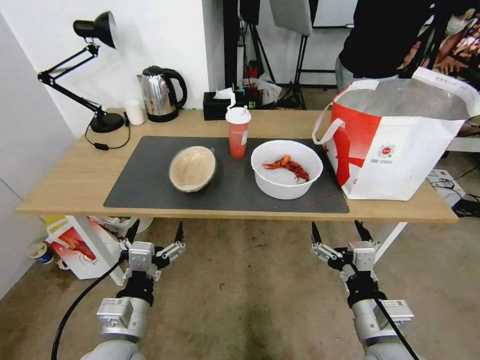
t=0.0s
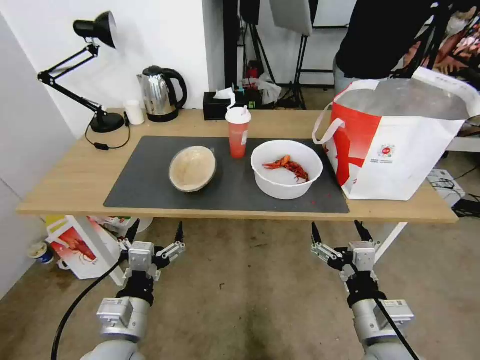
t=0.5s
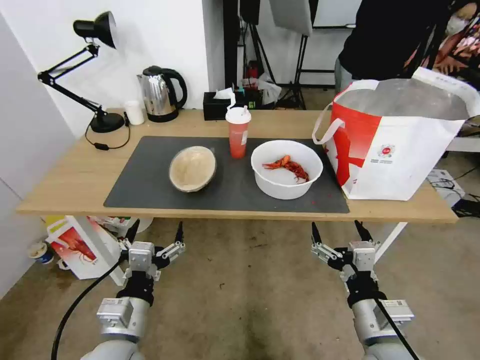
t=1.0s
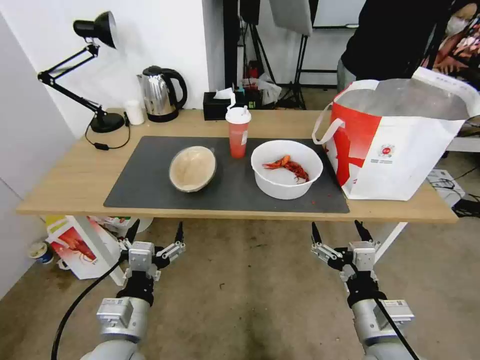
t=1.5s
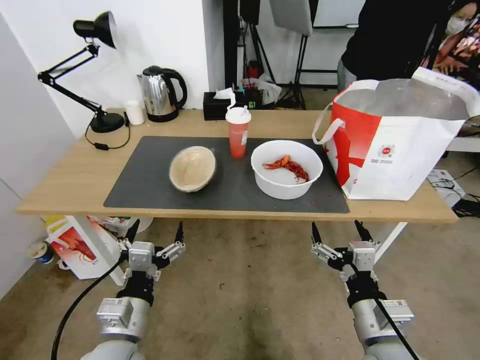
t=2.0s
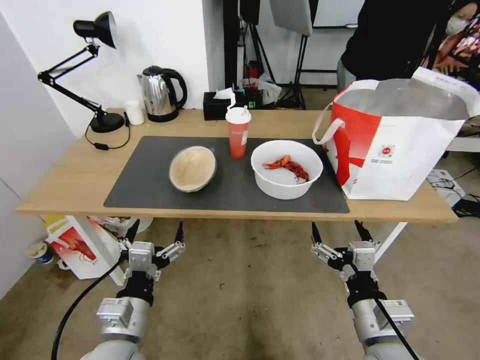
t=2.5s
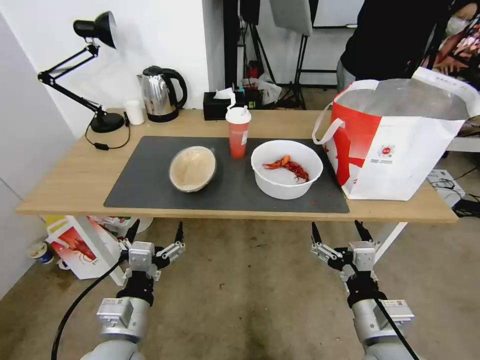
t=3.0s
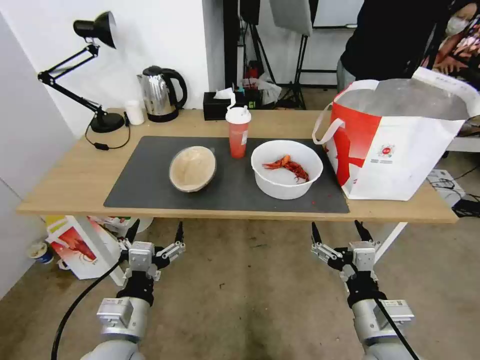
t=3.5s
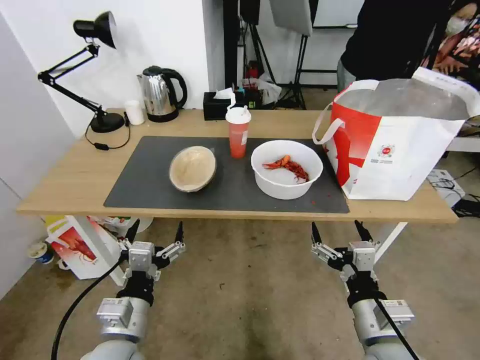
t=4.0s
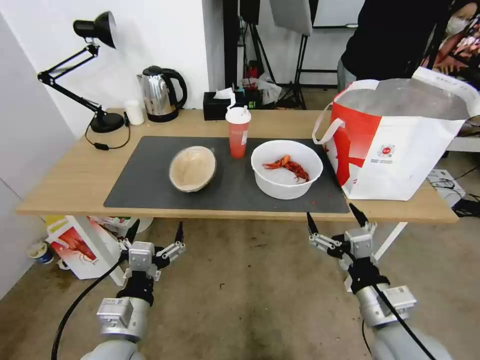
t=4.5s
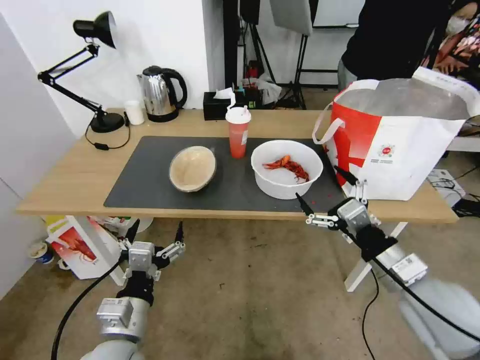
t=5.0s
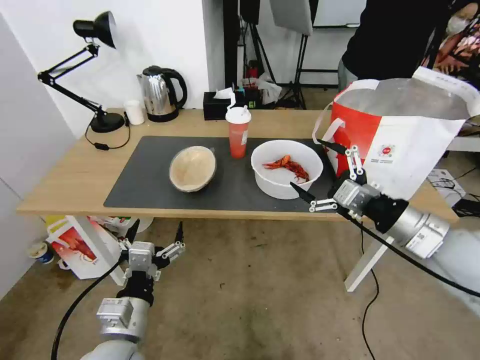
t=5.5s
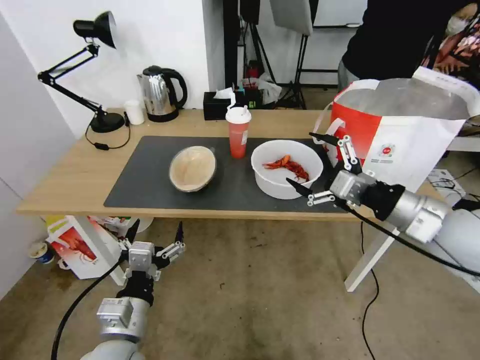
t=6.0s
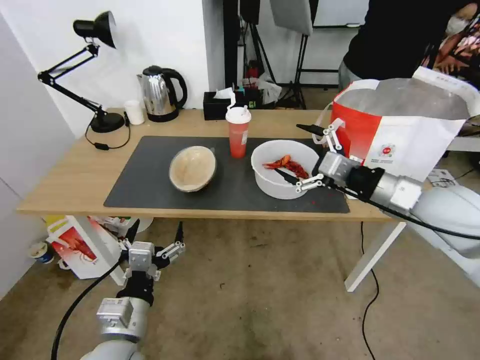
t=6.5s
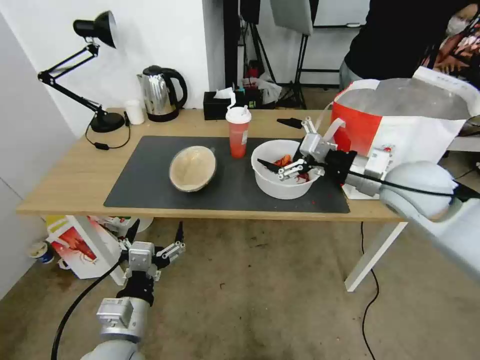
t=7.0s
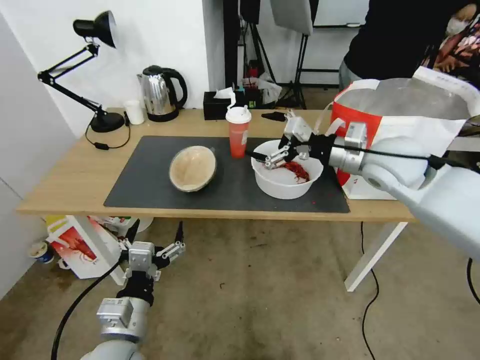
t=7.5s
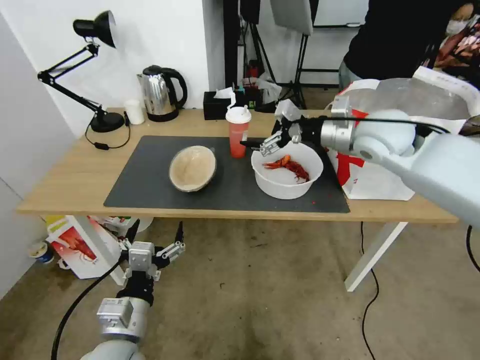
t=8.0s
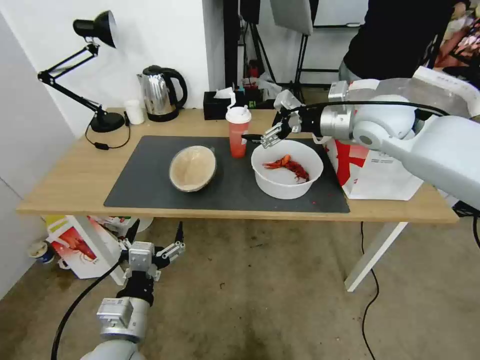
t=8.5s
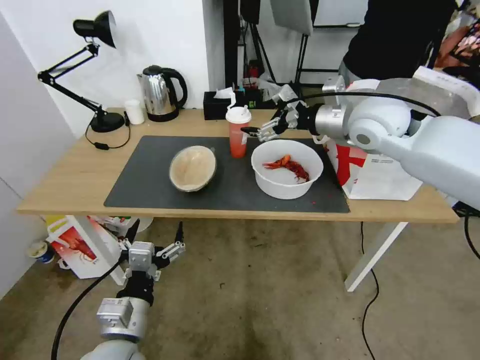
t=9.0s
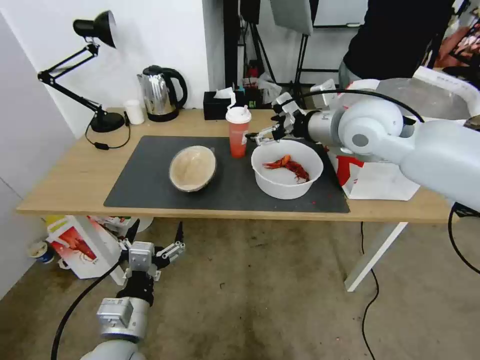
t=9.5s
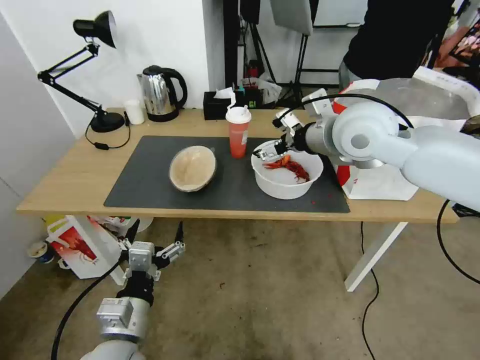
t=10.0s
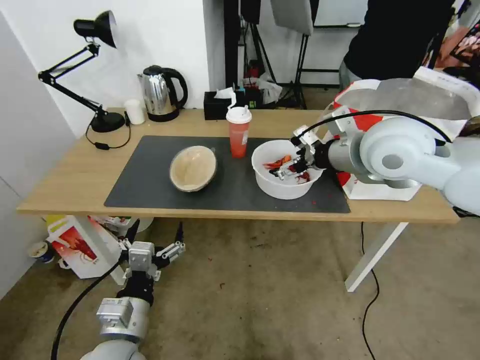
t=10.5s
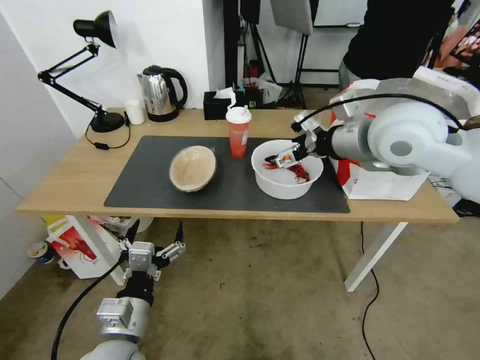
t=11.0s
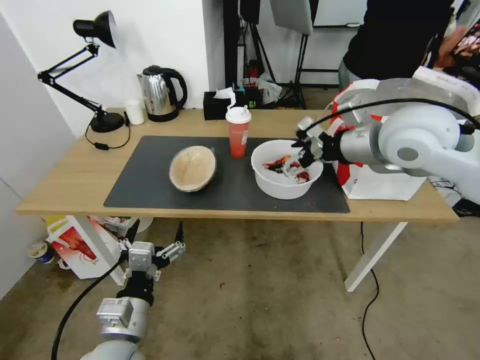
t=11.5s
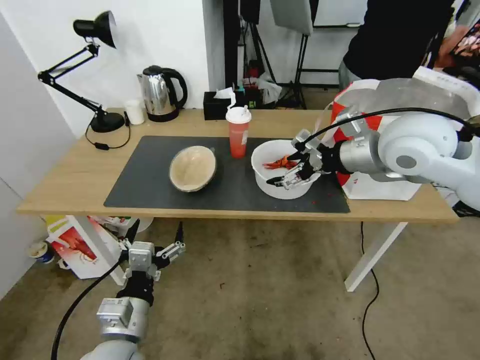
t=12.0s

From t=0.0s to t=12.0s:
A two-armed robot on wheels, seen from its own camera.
Task of the whole recording: Pick up the trash from the table and place it into the takeout bag.
From t=2.0s to t=4.0s: Both grippers stay about where they are.
From t=4.0s to t=6.0s: The right gripper travels upward, forward and to the right by some 25 cm.
From t=6.0s to t=8.0s: The right gripper moves forward, about 20 cm.
From t=8.0s to t=10.0s: The right gripper moves to the left, some 5 cm.
From t=10.0s to t=12.0s: The right gripper heads to the right, covering approximately 5 cm.

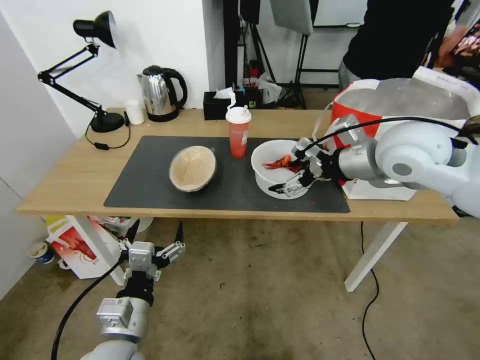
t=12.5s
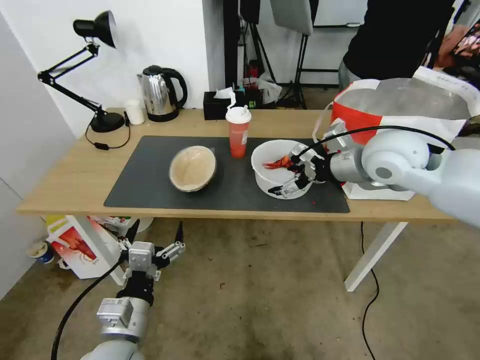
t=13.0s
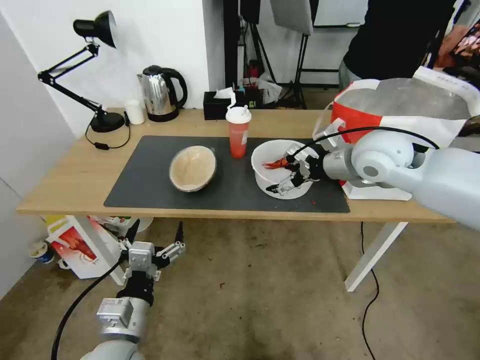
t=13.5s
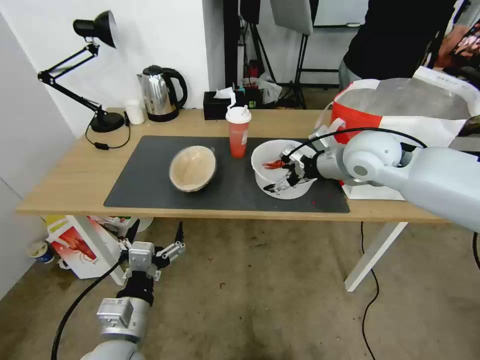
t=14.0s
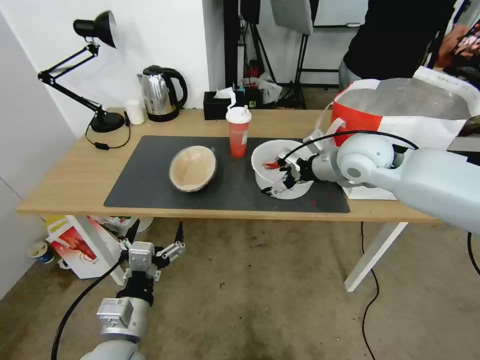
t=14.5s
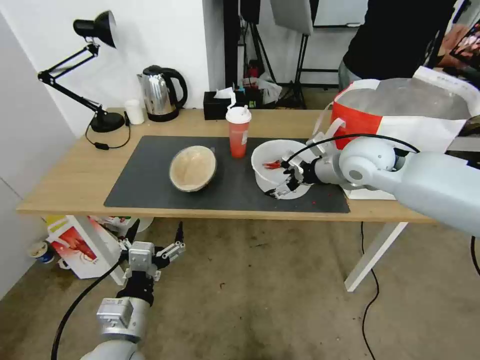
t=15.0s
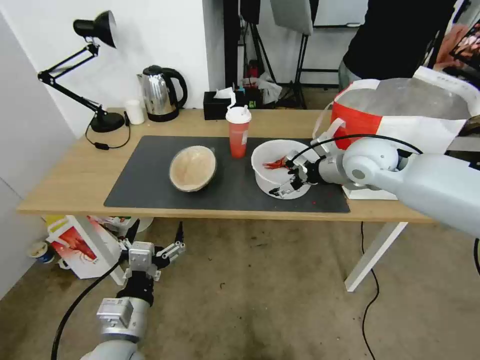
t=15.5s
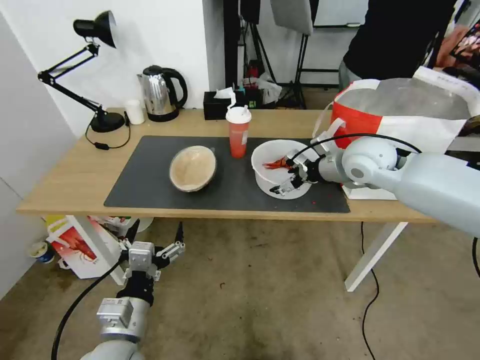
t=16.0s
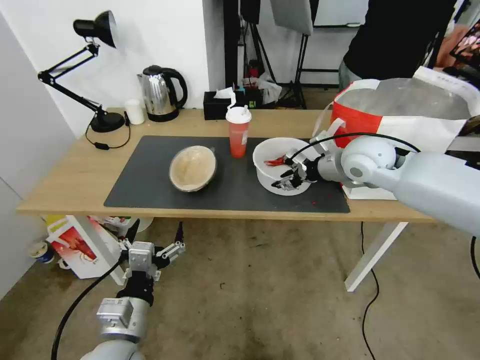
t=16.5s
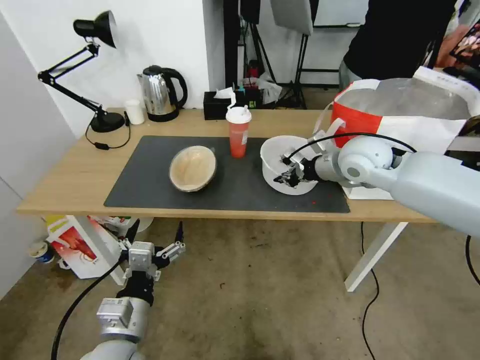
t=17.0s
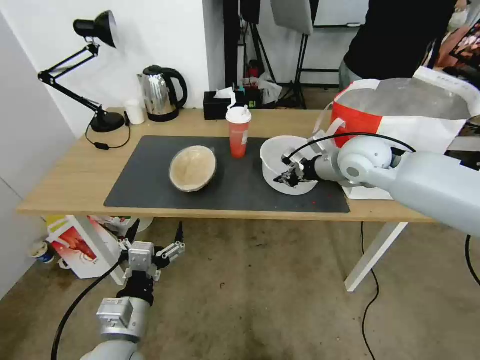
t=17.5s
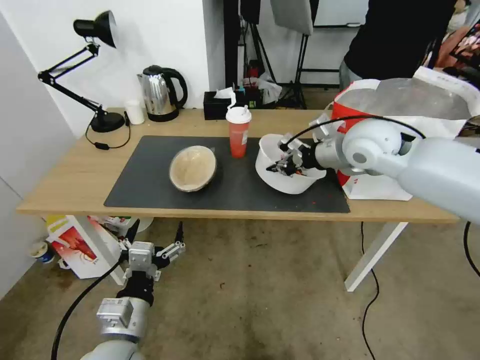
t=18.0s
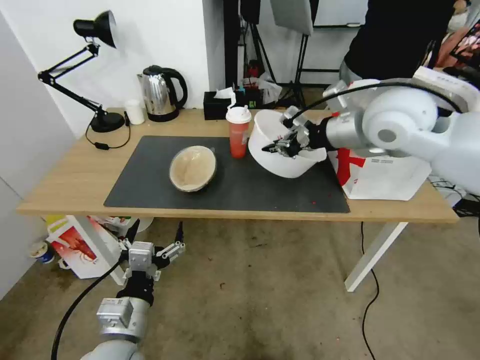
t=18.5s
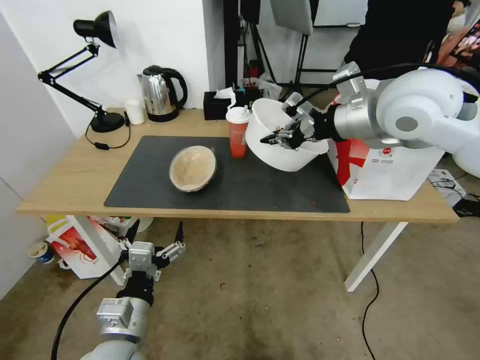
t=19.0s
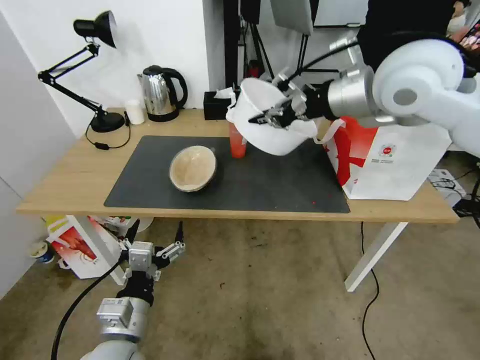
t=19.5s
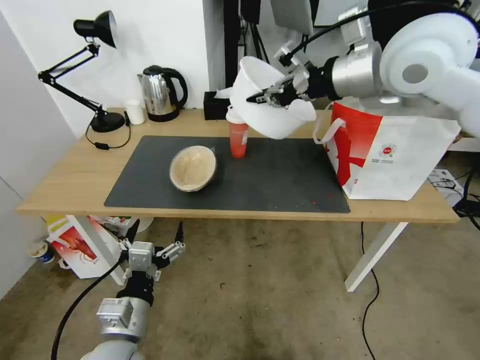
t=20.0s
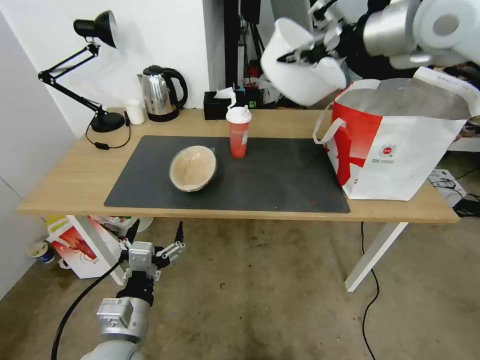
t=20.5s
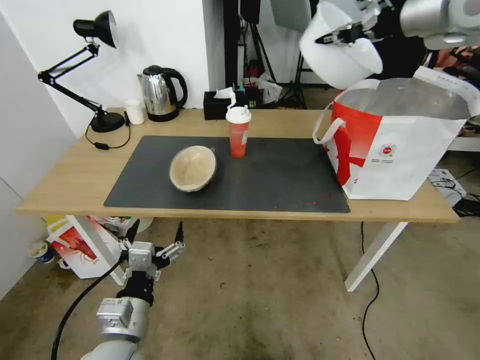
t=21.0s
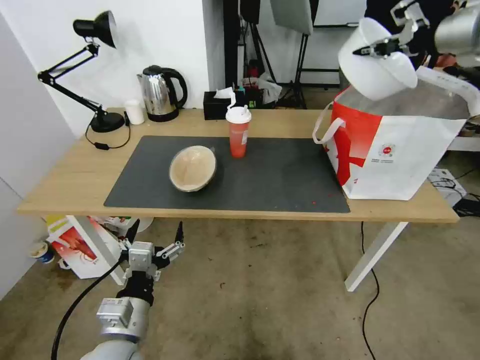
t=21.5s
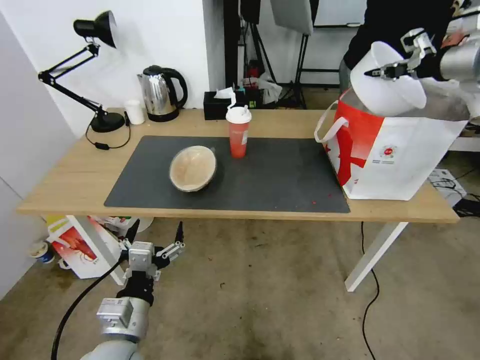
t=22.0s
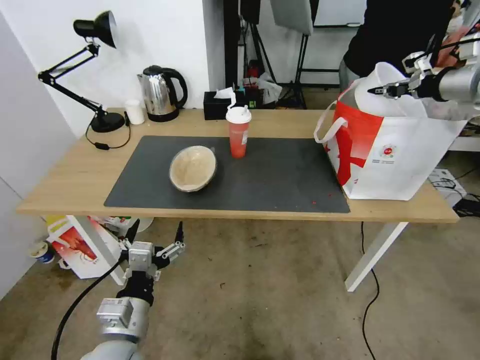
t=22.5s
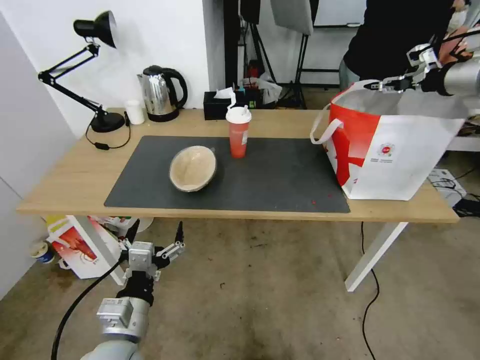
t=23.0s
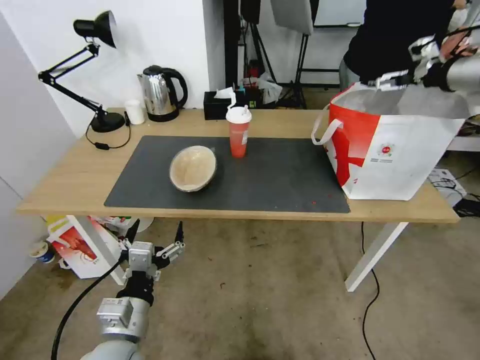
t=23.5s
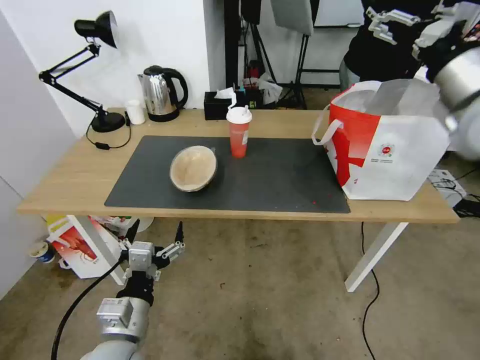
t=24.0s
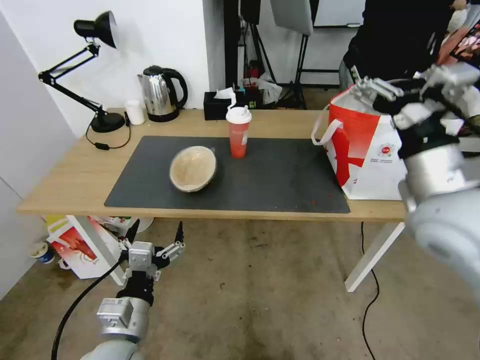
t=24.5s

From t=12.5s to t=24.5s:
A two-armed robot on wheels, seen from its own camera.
Task of the whole recording: Pick up the trash from the table and place it into the takeout bag.
From t=12.5s to t=14.5s: The right gripper heads downward and forward, covering roughly 10 cm.
From t=14.5s to t=16.5s: The right gripper closes up.
From t=16.5s to t=18.5s: The right gripper is displaced upward by approximately 10 cm, and closes its fingers.
From t=18.5s to t=20.5s: The right gripper moves upward, approximately 15 cm.
From t=20.5s to t=22.5s: The right gripper is displaced to the right and downward by about 25 cm.
From t=22.5s to t=24.5s: The right gripper travels backward, to the left and downward by roughly 30 cm, and opens its fingers.

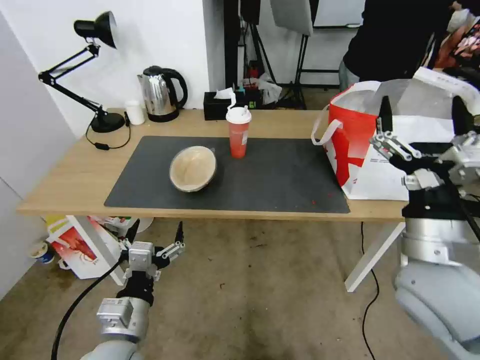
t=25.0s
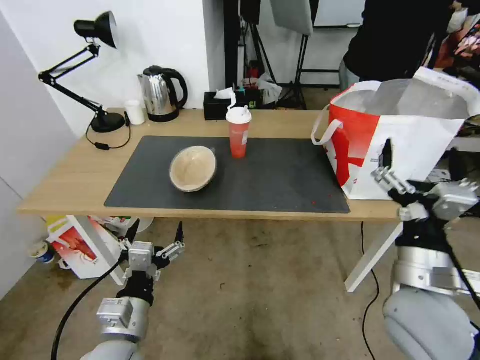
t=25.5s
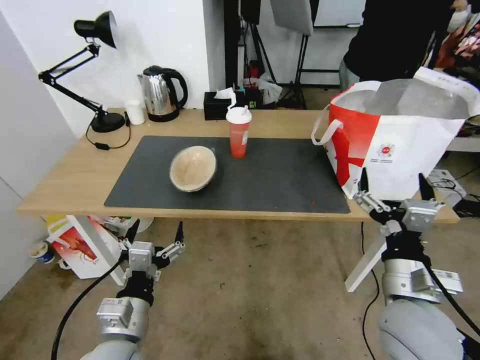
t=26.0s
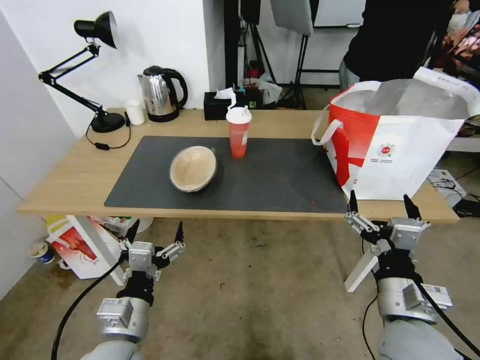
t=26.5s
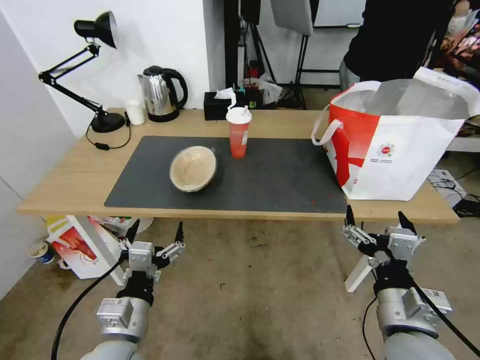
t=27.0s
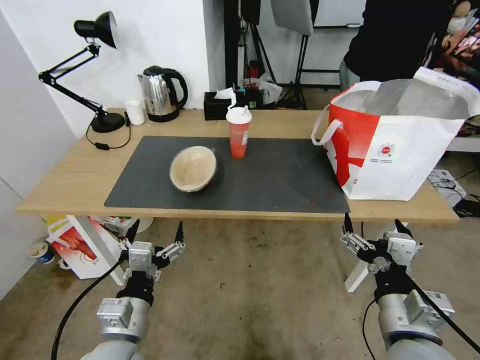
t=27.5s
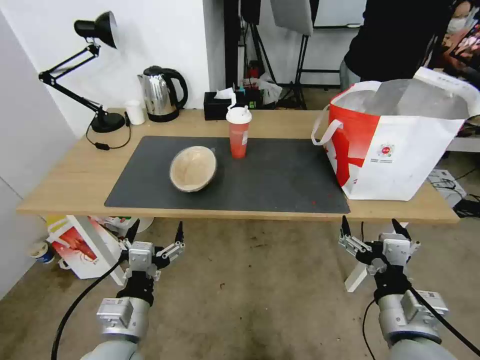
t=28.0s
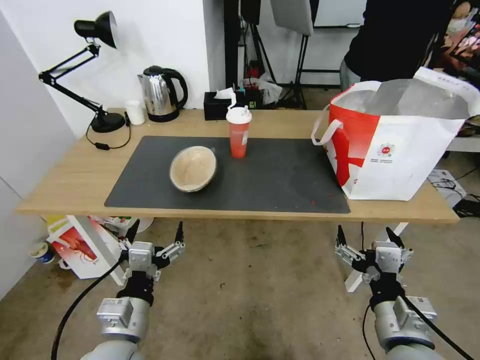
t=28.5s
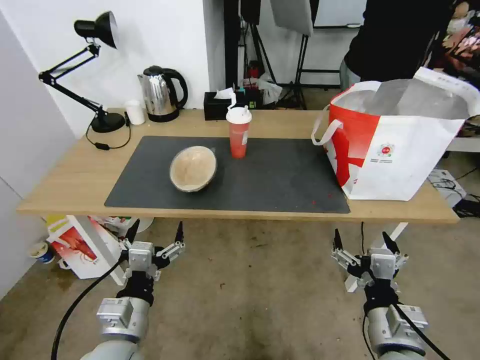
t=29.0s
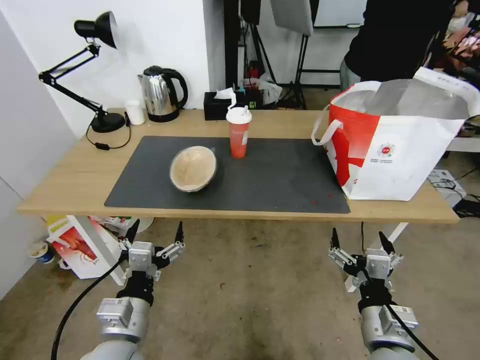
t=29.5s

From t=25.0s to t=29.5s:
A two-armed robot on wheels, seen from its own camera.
Task of the whole recording: Pick up the trash from the table and place it into the takeout bag.
From t=25.0s to t=27.0s: The right gripper heads downward and backward, covering some 10 cm.
From t=27.0s to t=29.5s: The right gripper shifts approximately 5 cm downward.
